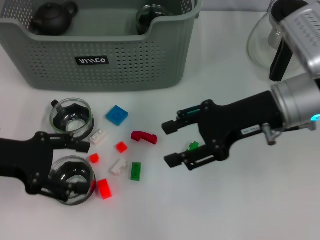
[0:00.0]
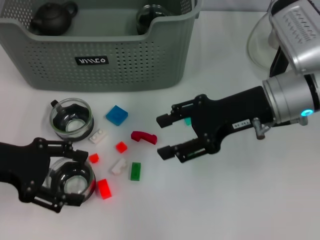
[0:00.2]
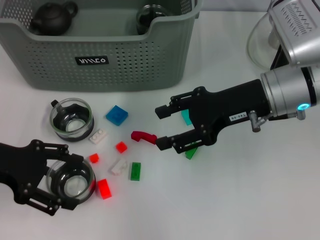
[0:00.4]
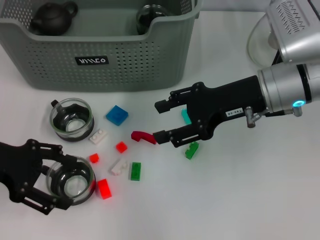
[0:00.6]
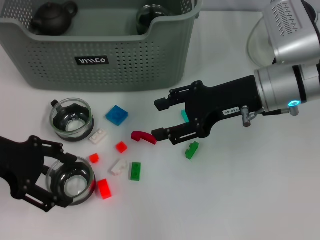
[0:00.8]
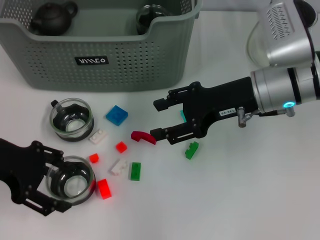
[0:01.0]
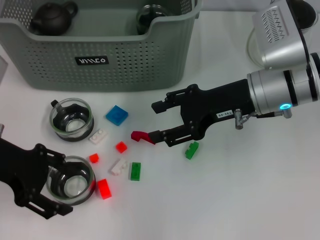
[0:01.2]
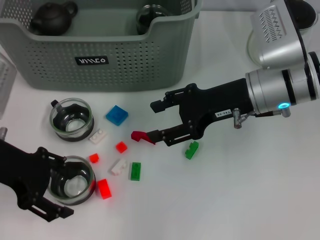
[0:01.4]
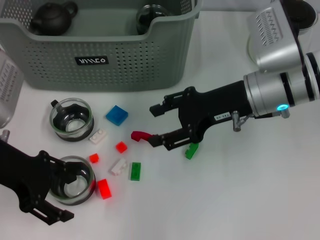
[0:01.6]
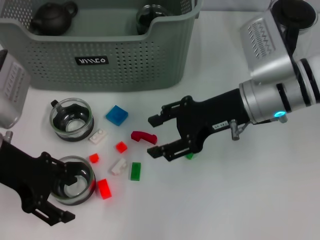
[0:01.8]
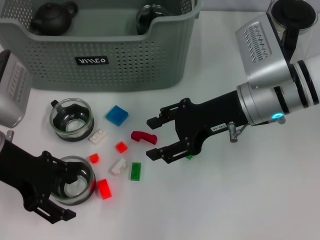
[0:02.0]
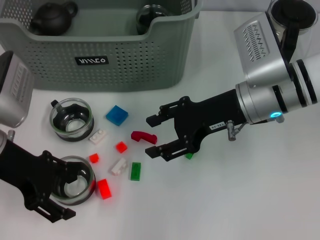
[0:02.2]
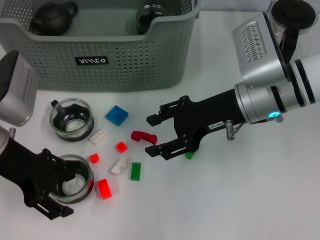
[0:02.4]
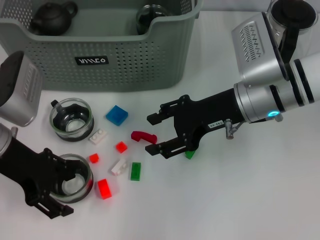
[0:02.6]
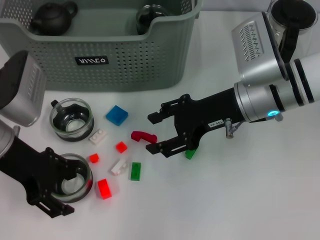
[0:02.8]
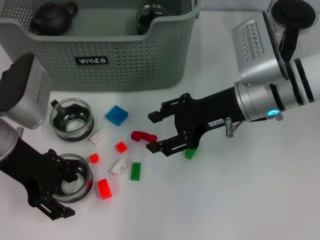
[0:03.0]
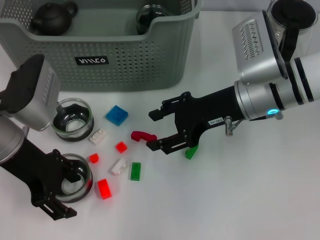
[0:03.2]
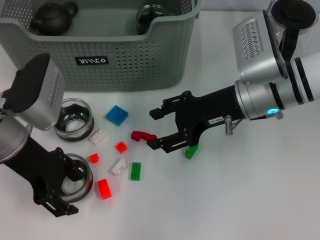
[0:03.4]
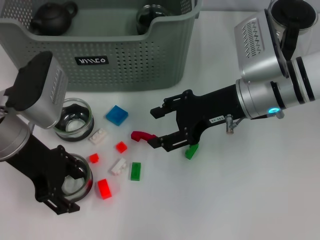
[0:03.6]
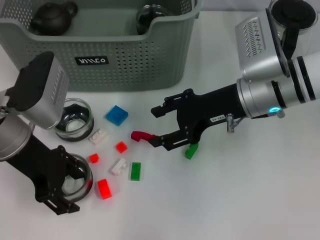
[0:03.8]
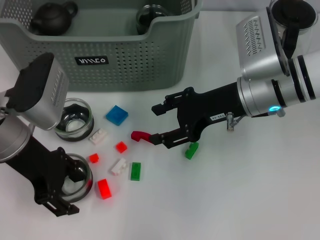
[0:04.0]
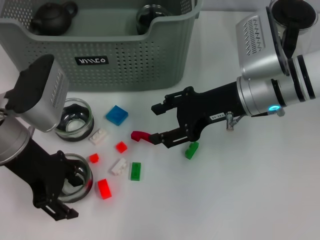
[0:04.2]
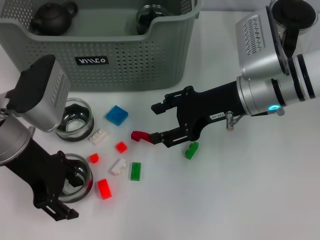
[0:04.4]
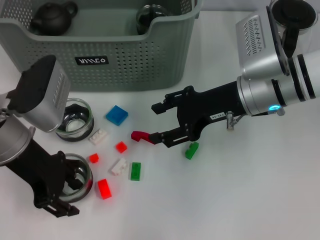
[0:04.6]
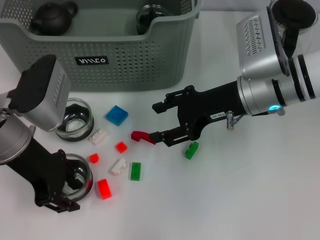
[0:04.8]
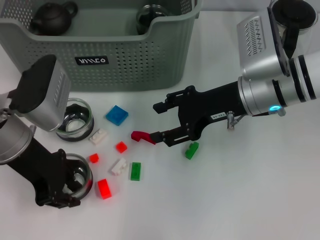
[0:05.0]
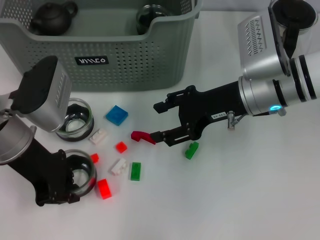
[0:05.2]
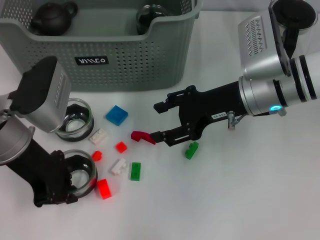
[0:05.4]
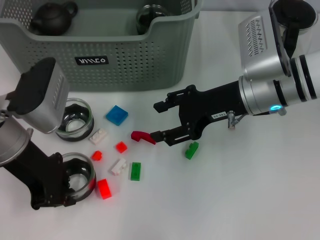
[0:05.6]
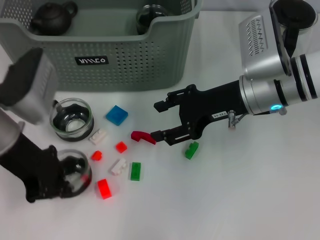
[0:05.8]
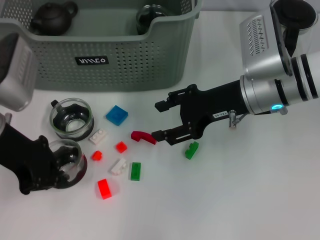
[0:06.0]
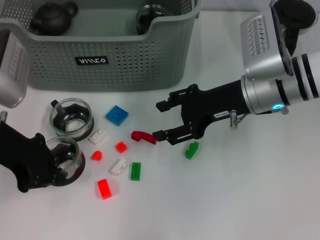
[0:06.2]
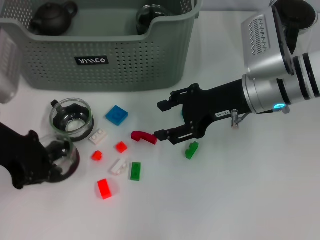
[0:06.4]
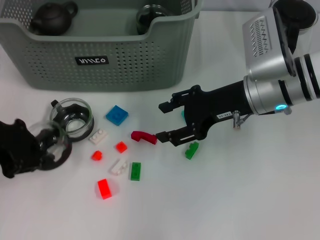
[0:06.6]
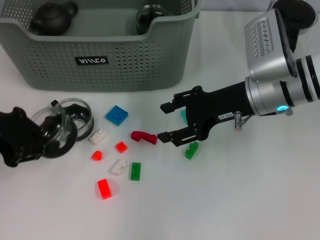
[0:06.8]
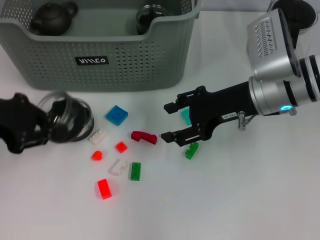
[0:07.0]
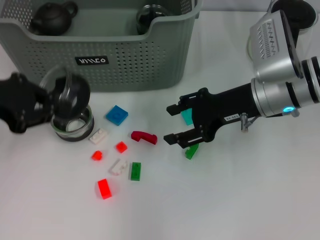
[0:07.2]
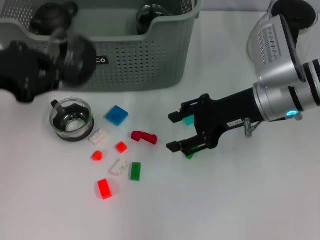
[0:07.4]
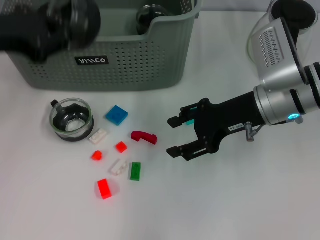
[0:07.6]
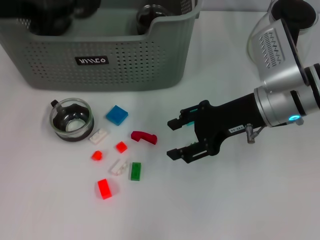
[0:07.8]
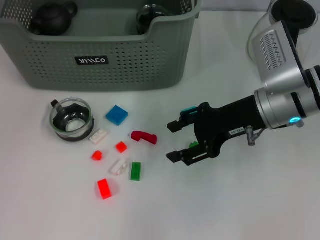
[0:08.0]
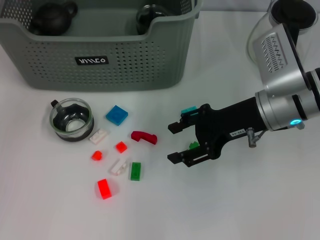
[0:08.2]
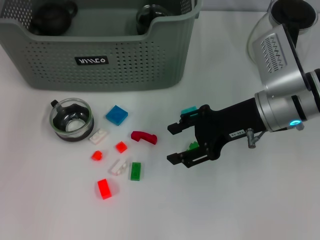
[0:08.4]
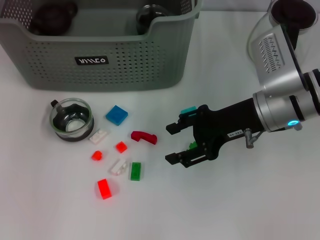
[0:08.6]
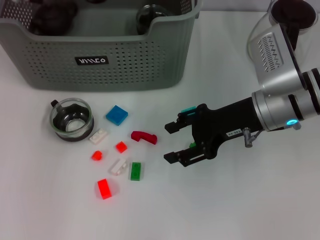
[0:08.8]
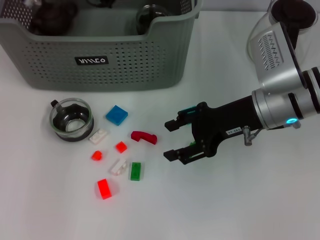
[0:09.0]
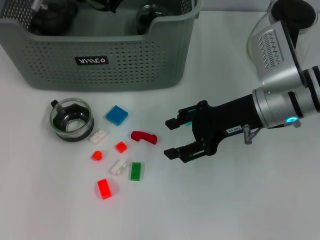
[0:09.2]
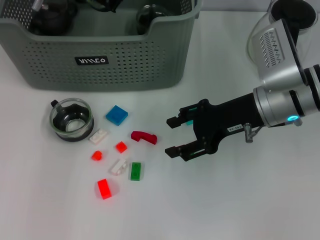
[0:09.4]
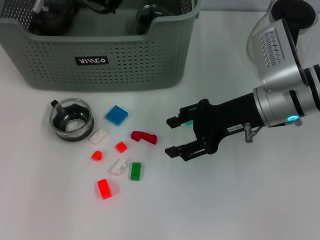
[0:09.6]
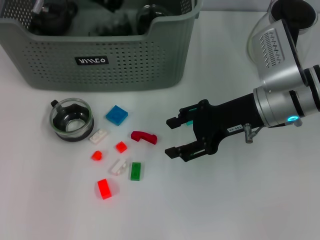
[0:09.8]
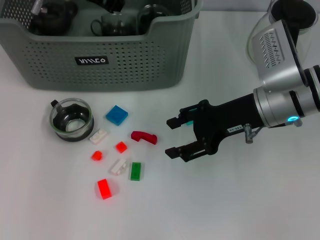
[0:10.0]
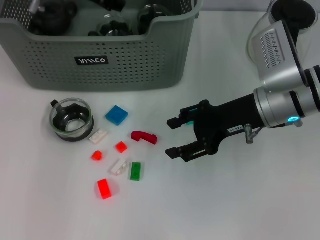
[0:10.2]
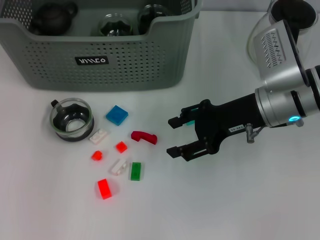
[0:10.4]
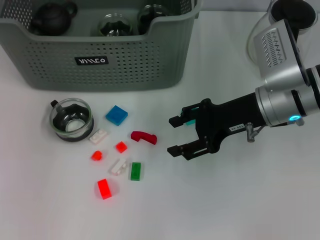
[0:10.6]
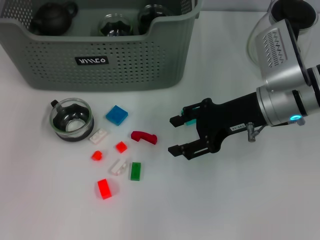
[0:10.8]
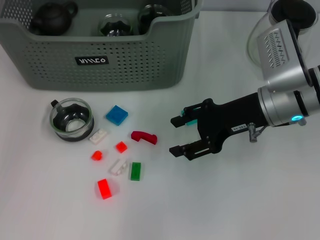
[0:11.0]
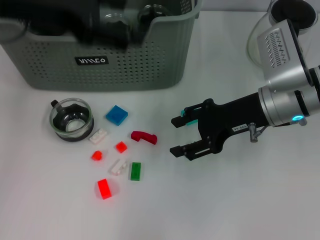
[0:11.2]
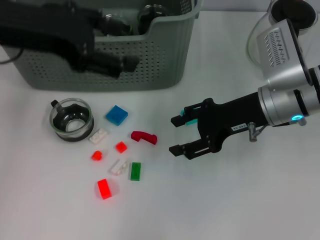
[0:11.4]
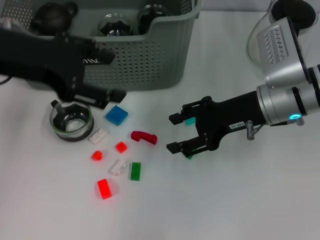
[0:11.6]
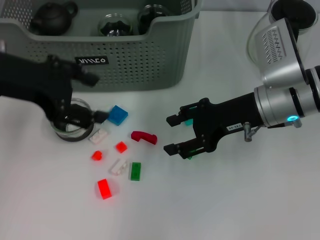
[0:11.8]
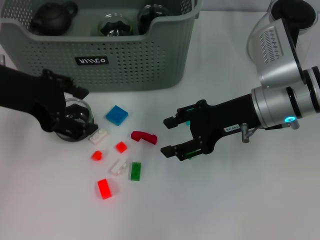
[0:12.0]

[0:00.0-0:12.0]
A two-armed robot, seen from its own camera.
Task of the whole recording: pick up the teacup on the table and place it into the storage bin, pick up the block on the table and place it into the storage bin.
Step, 0:00.0 to 0:05.8: Grasp the cup with left gripper.
Step, 0:06.0 to 0:10.6: Place the cup in the storage box with left gripper.
0:00.0 to 0:01.6: The left gripper moves about 5 cm.
0:01.6 to 0:04.4: The grippers make only small movements.
0:04.4 to 0:06.0: The left gripper closes its fingers.
0:06.0 to 0:07.6: The left gripper heads upward, covering some 5 cm.
0:07.6 to 0:09.0: The left gripper moves forward and to the right, about 20 cm.
0:09.0 to 0:10.4: The left gripper opens its fingers.
0:10.4 to 0:12.0: The left gripper goes about 15 cm backward.

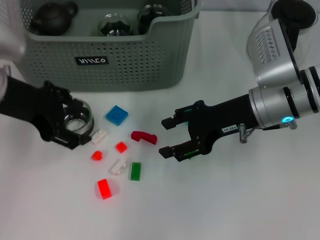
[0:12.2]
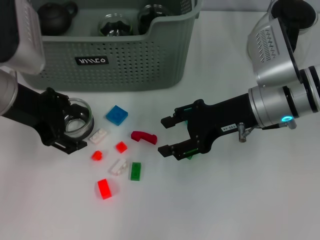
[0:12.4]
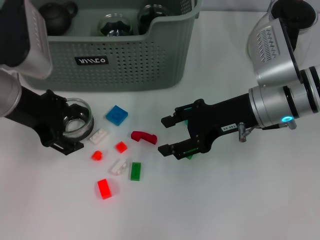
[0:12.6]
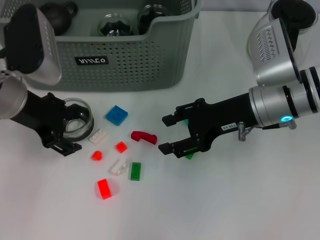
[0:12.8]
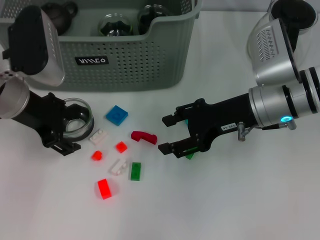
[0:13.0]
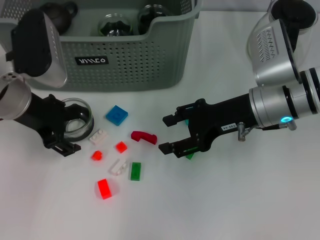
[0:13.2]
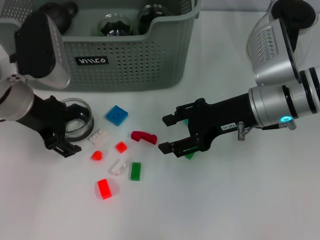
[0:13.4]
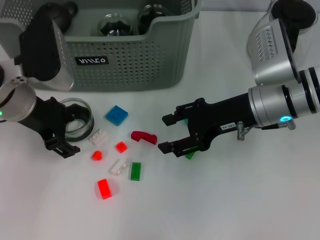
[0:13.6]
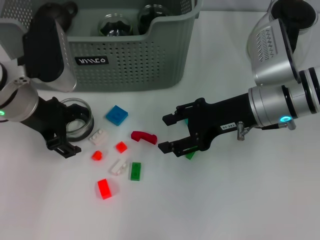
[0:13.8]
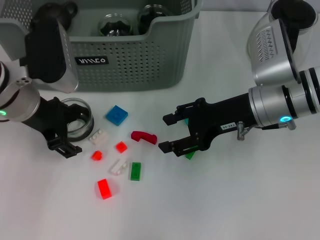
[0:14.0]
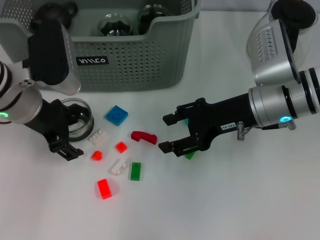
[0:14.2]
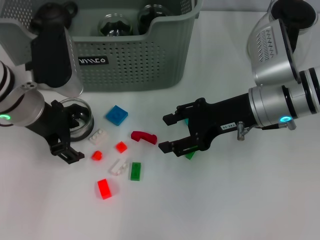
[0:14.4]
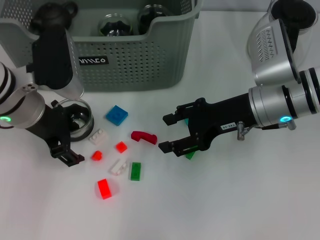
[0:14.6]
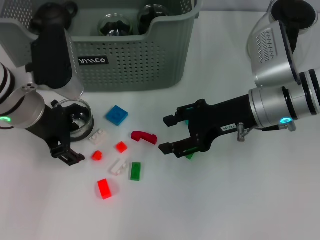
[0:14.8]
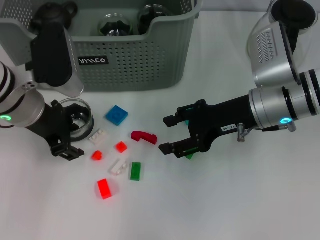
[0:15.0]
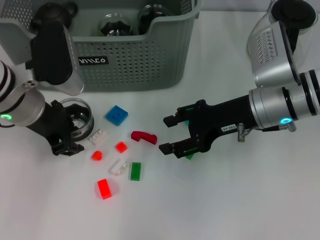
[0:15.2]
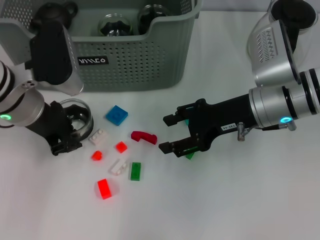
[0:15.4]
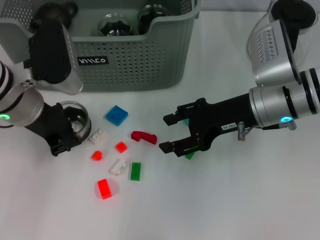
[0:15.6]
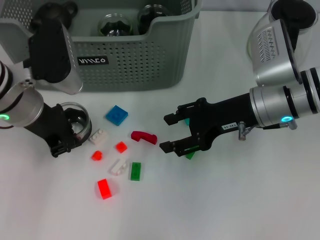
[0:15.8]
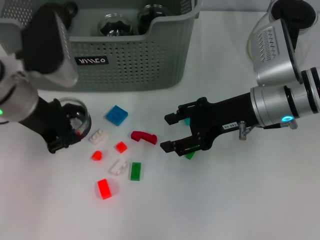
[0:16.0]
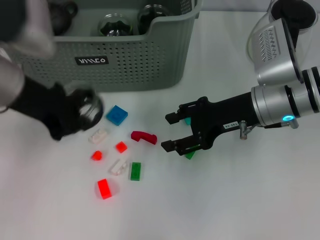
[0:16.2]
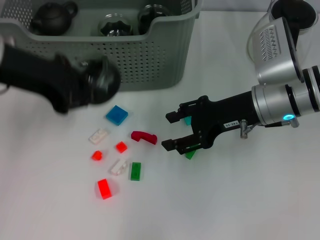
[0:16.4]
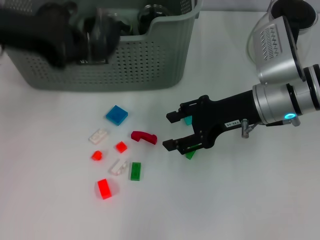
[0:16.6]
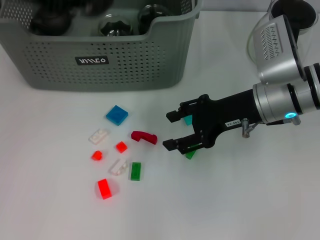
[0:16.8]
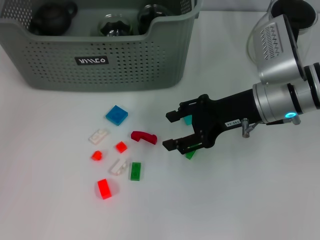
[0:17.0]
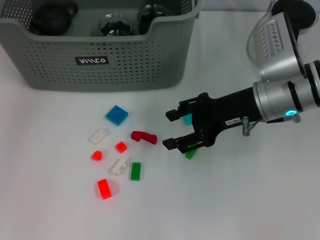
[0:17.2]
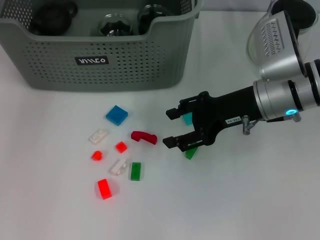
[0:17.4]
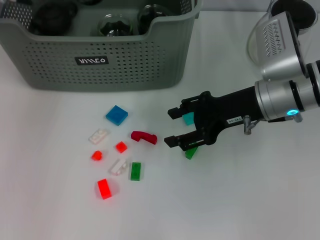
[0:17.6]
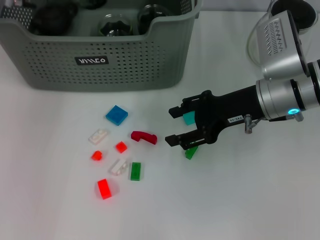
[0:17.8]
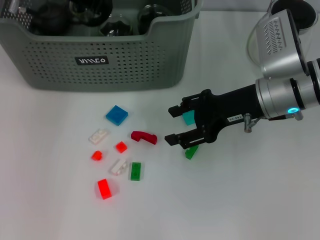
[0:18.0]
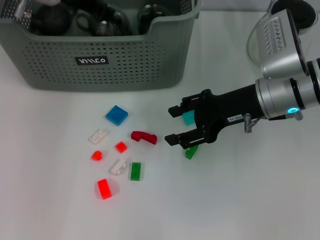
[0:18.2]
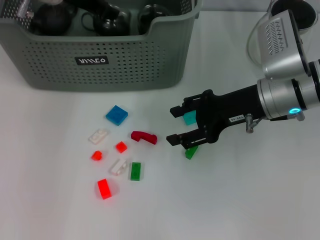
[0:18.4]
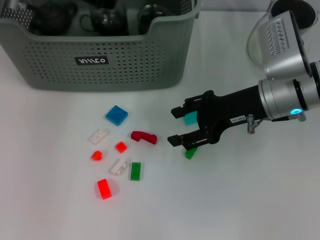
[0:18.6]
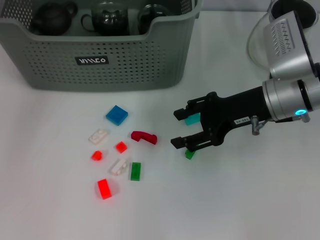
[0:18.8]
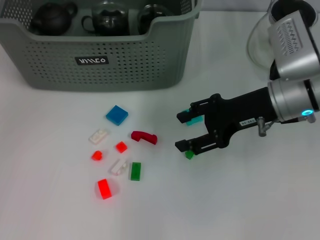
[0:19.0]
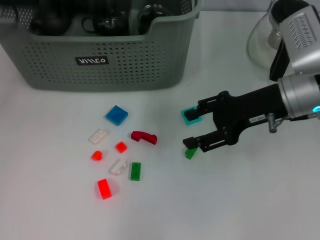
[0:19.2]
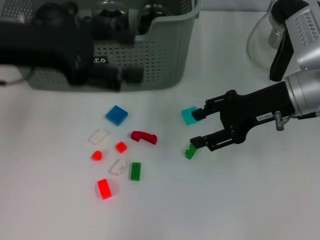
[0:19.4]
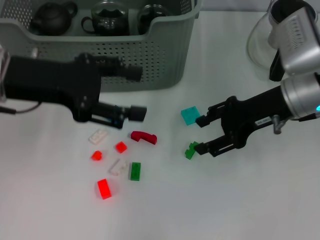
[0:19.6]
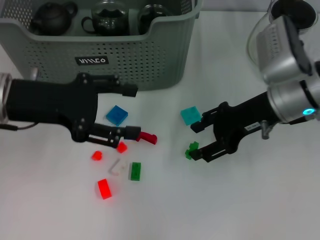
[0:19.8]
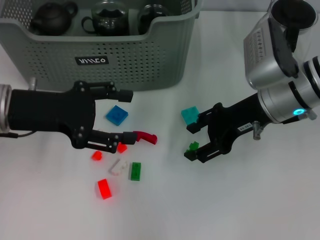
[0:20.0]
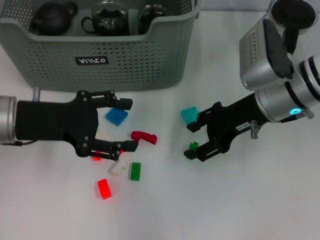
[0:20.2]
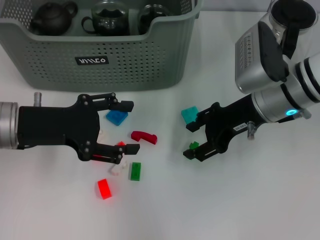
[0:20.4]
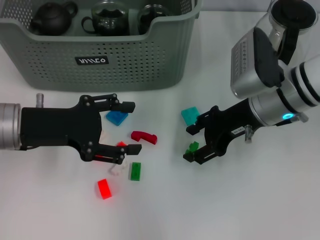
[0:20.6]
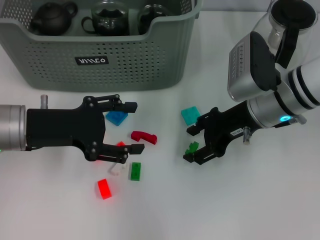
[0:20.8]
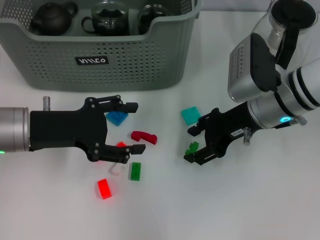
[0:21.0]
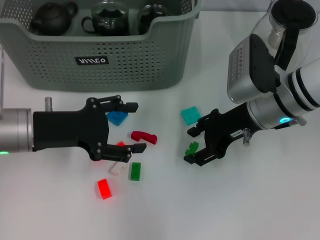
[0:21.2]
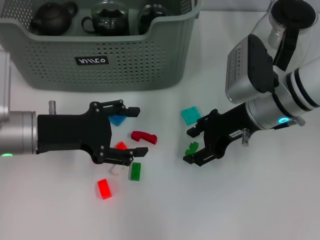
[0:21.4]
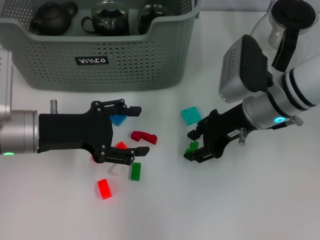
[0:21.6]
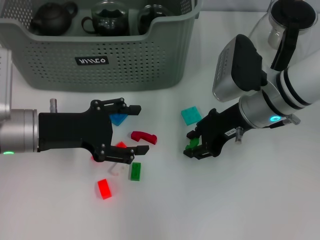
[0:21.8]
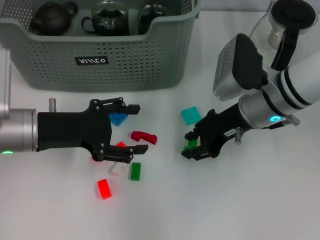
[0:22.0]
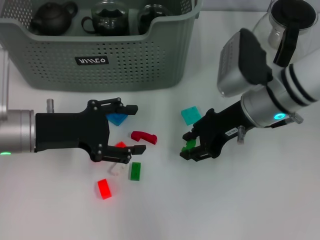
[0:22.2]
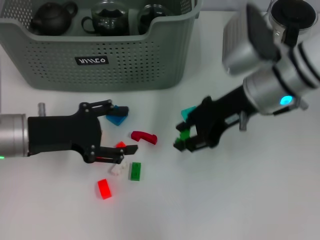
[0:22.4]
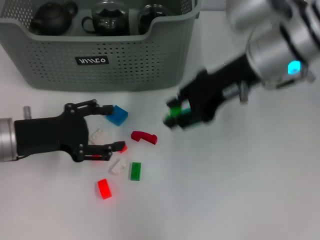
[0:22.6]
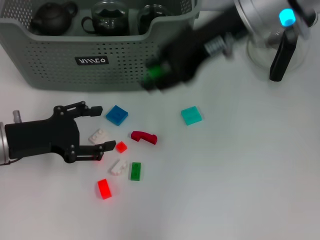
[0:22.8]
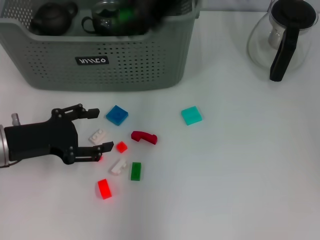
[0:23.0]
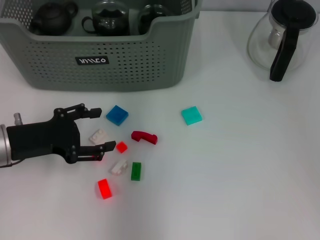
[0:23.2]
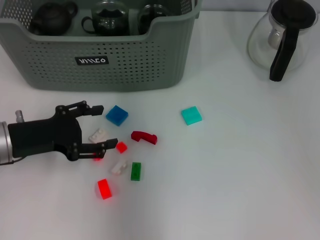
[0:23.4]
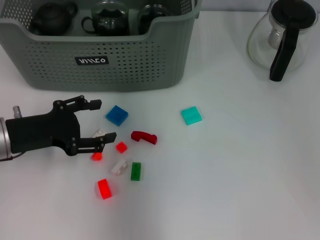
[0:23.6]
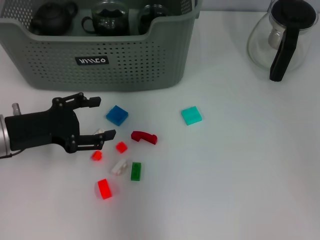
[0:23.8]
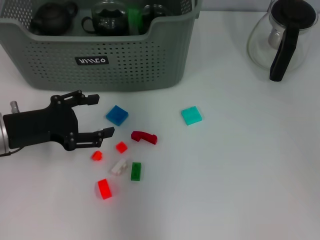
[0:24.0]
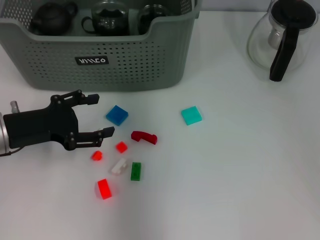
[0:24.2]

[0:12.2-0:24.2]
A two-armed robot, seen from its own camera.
Task of the whole recording: pick up the teacup on the table and place it into the storage bin, pick up the block on the table and place it into the storage bin.
Step, 0:12.2 to 0:15.6: Grasp the cup with left gripper.
Step, 0:15.8 to 0:18.8: Place the cup in the storage box with left gripper.
Step, 0:19.2 to 0:22.0: Grasp the green block with right gripper.
0:12.2 to 0:13.8: The left gripper moves some 5 cm.
0:13.8 to 0:15.2: Both grippers stay put.
0:15.2 to 0:16.6: The left gripper travels upward by about 10 cm, and closes up.
0:16.6 to 0:18.2: The left gripper heads forward, downward and to the right, covering approximately 15 cm.
0:18.2 to 0:19.8: The left gripper travels backward by roughly 15 cm, and opens.
0:19.8 to 0:21.2: The left gripper shifts some 5 cm downward.
0:21.2 to 0:22.6: The right gripper shifts approximately 10 cm upward.
0:22.6 to 0:24.2: The right gripper heads forward, to the left and upward, covering roughly 15 cm.
